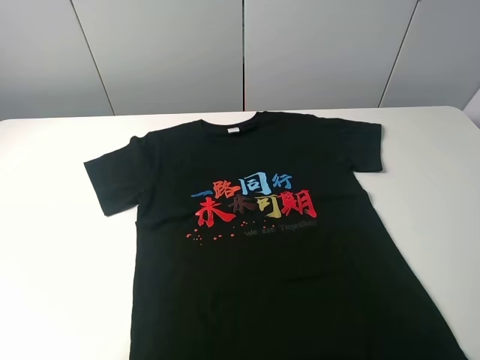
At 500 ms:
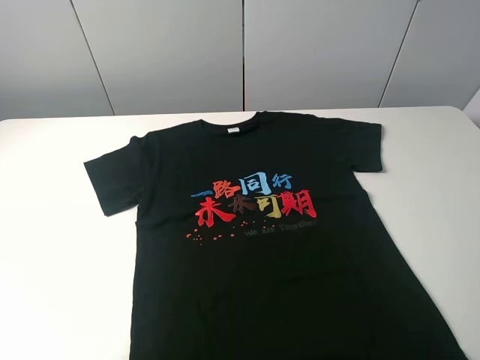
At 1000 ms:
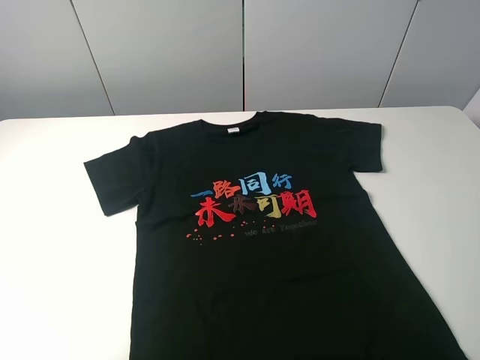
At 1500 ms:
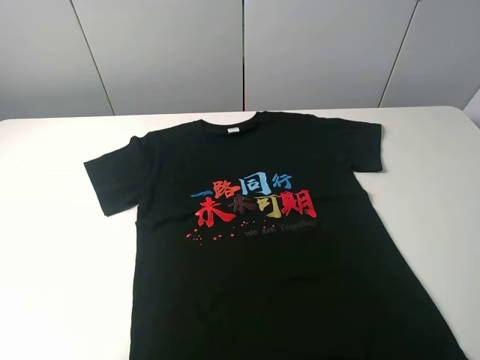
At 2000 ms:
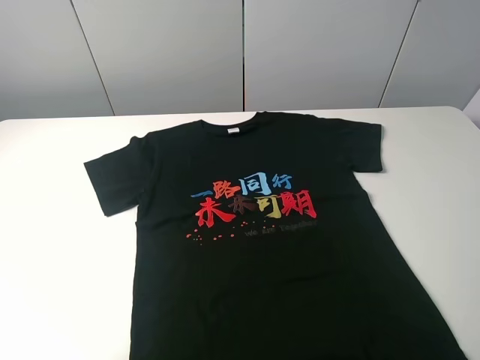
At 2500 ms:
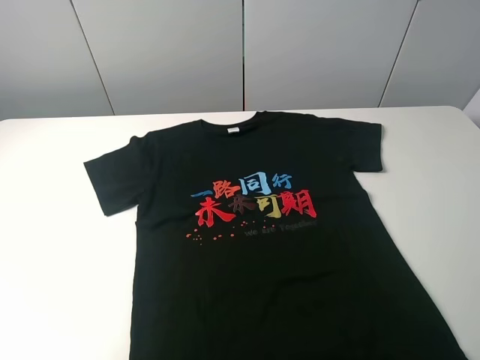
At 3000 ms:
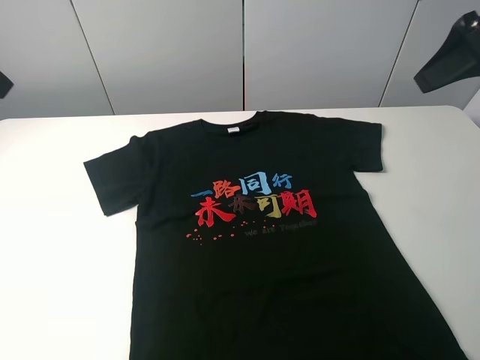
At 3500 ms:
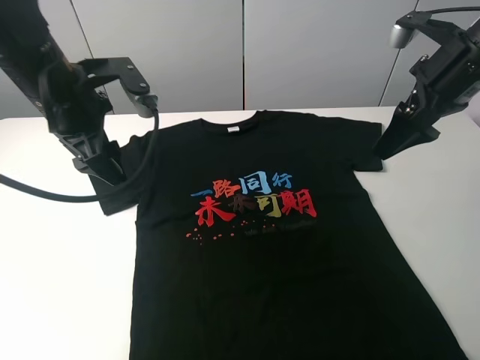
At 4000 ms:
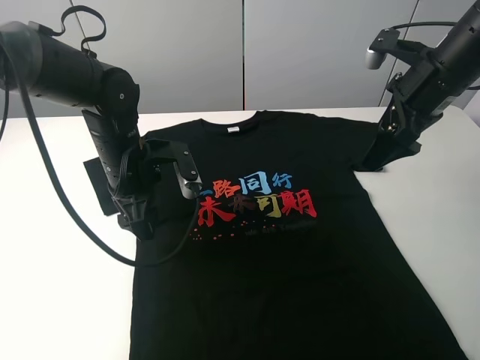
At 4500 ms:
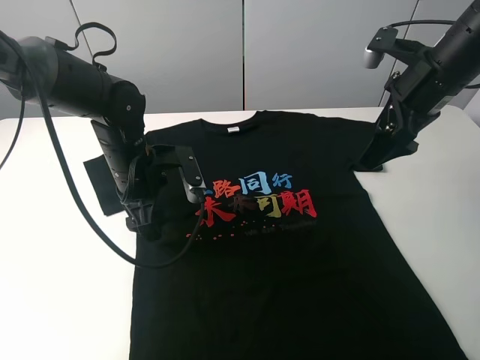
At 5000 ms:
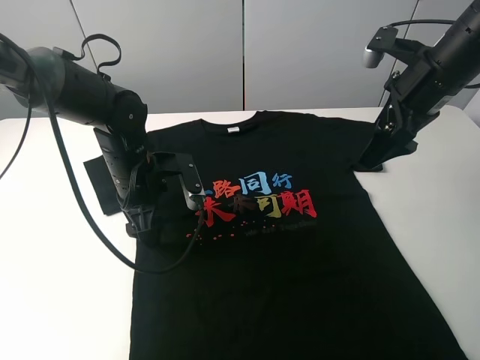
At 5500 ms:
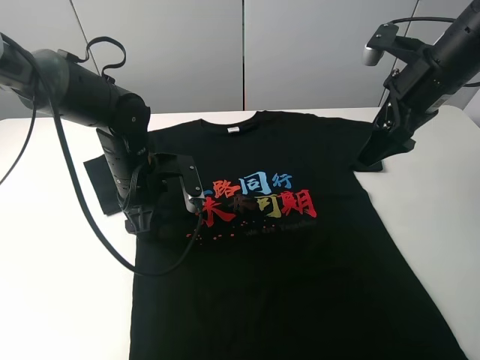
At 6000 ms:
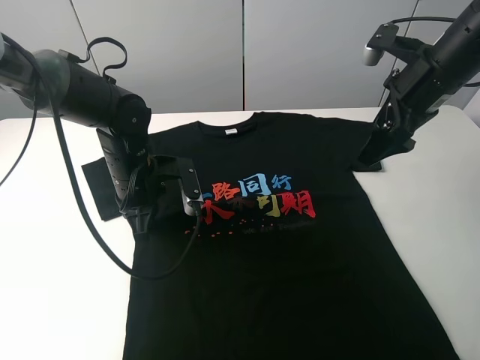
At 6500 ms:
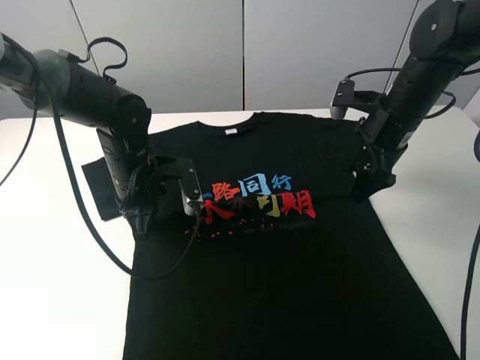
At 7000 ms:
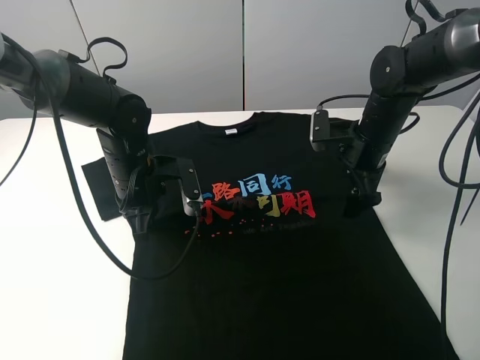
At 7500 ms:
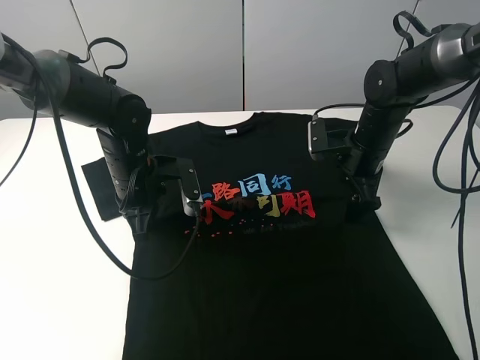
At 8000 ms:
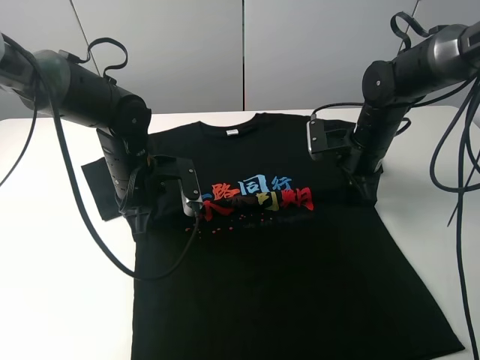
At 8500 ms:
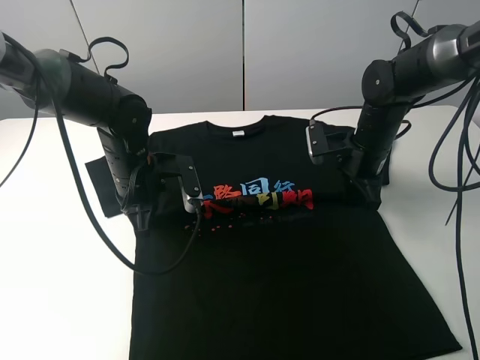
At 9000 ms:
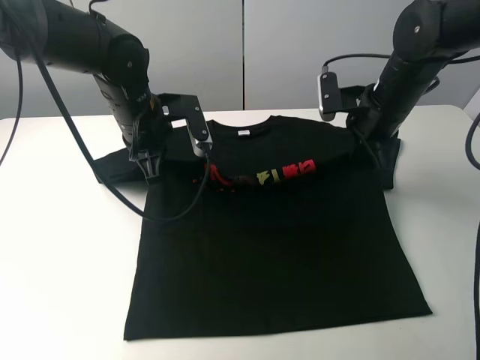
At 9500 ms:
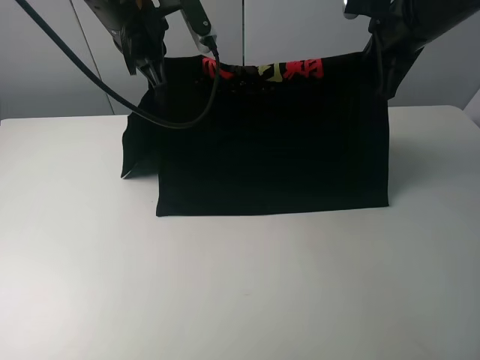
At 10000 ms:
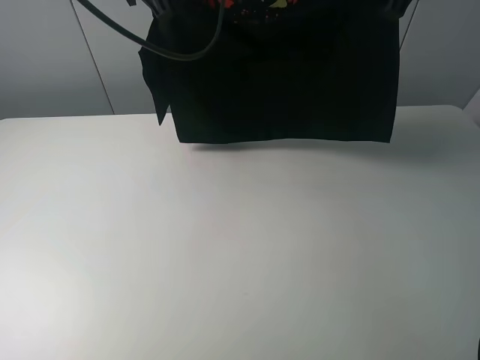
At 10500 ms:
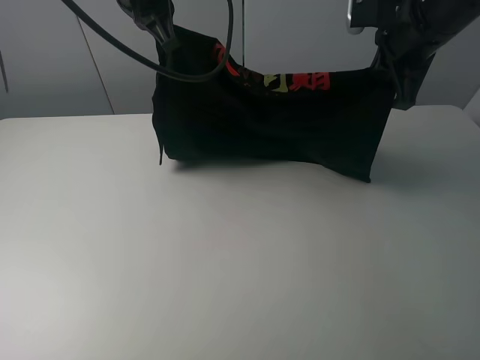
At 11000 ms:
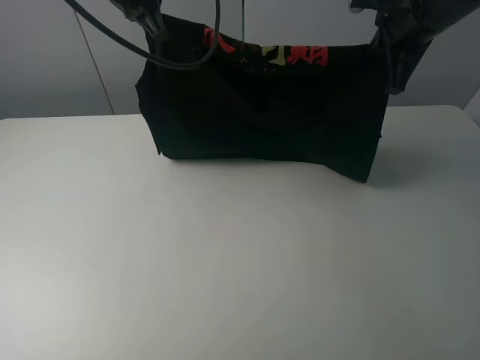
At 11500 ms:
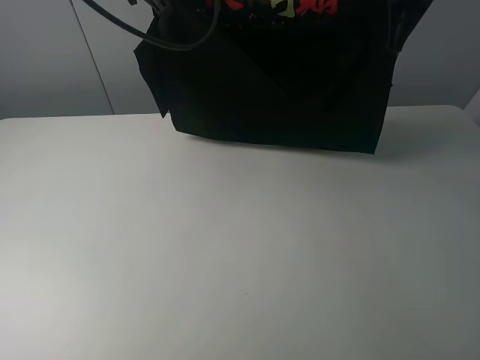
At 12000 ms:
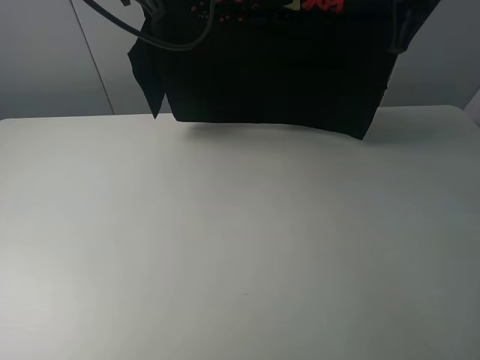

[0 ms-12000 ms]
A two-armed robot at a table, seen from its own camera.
Task of the whole recording: fold the clothes on the table.
Step, 0 ms to 8000 ms: Lift the black T-shirt with the left gripper.
2000 ms to 4000 ms: The left gripper goes about 40 cm forward, downward and to the right. Meanwhile the right gripper goes about 35 cm forward.
4000 ms to 6000 ms: The left gripper closes its fingers.
6000 ms to 8000 ms: The right gripper is displaced downward by about 15 cm, and closes.
8000 ms to 10000 ms: The two grippers go roughly 25 cm upward.
10000 ms to 12000 ms: The right gripper goes some 5 cm downward.

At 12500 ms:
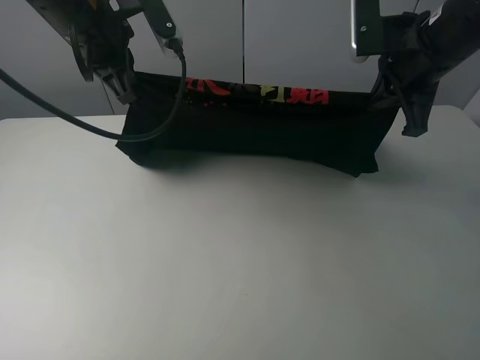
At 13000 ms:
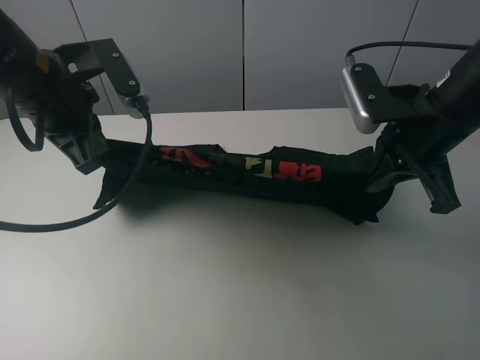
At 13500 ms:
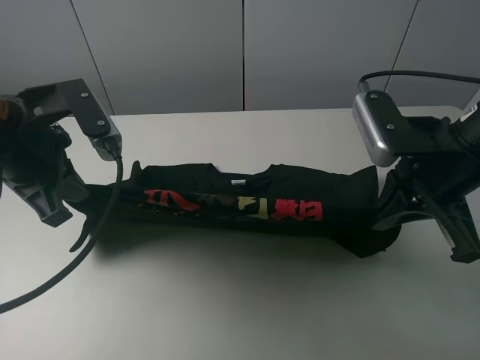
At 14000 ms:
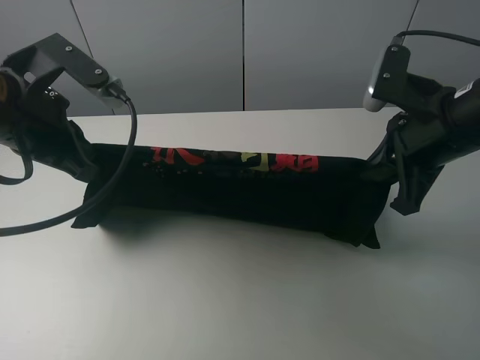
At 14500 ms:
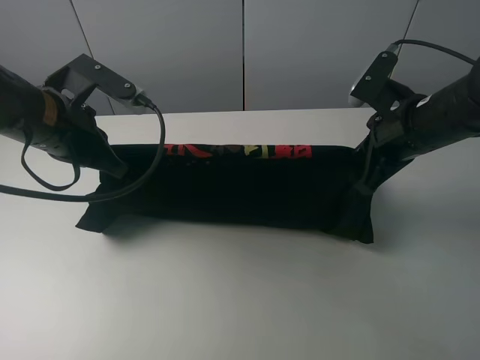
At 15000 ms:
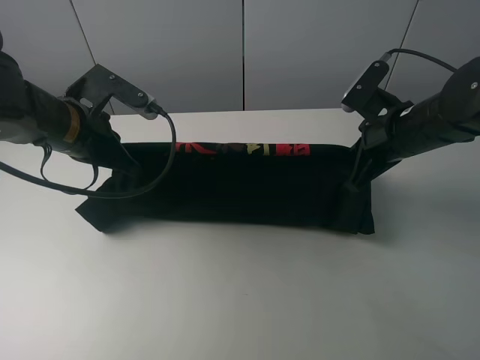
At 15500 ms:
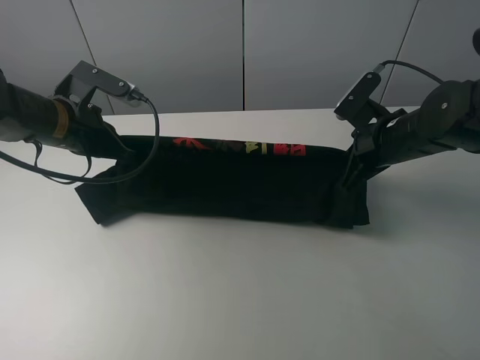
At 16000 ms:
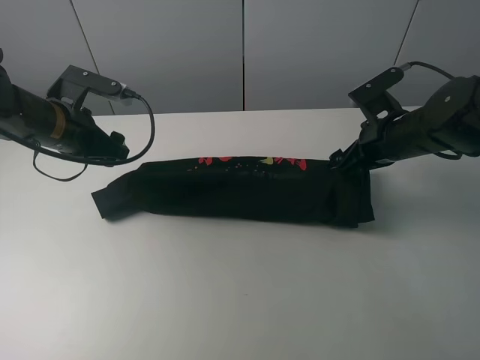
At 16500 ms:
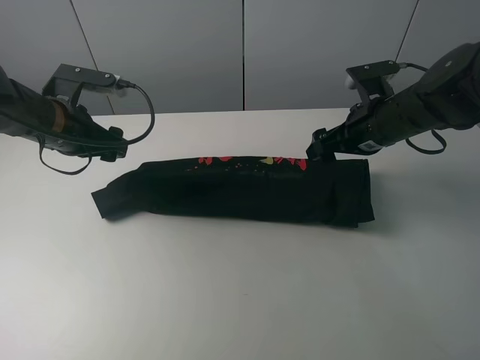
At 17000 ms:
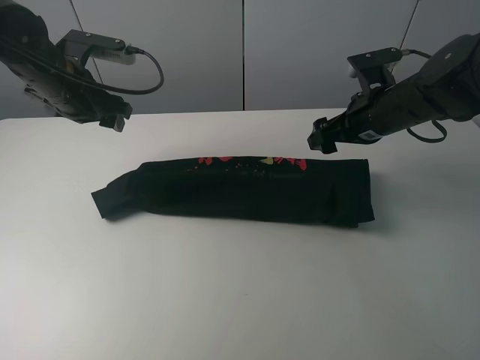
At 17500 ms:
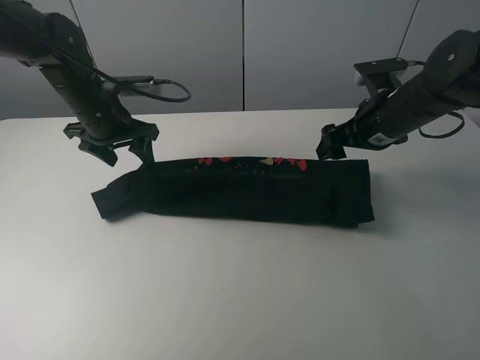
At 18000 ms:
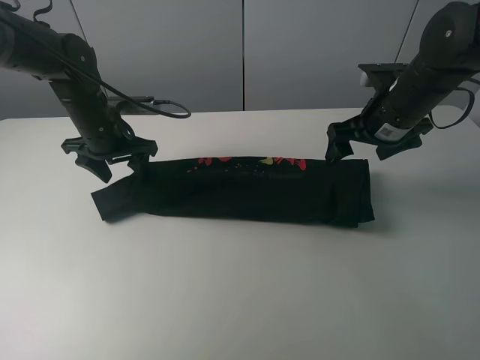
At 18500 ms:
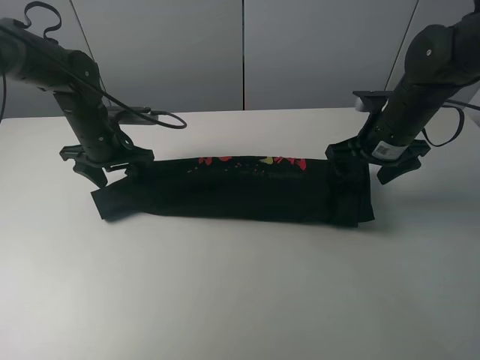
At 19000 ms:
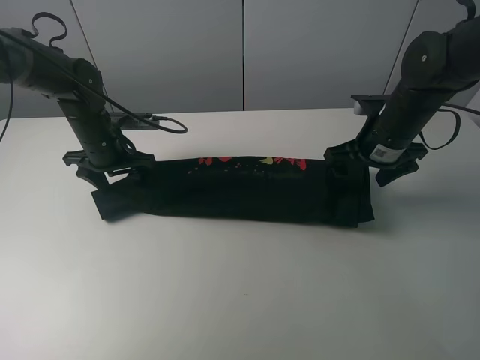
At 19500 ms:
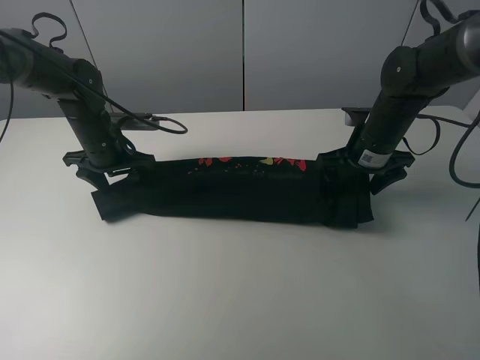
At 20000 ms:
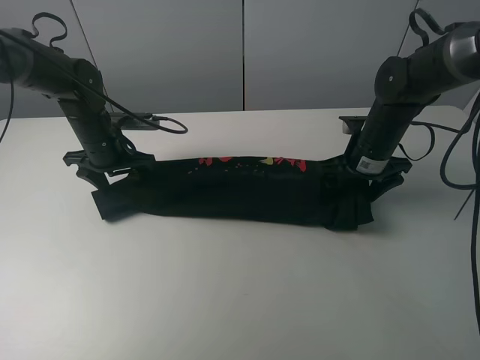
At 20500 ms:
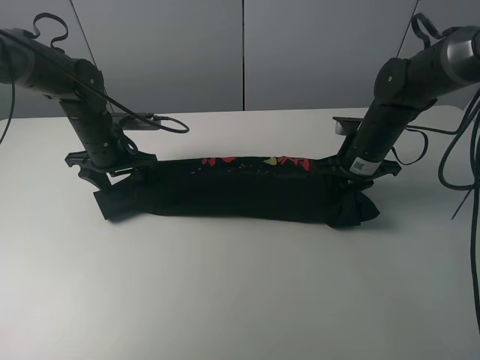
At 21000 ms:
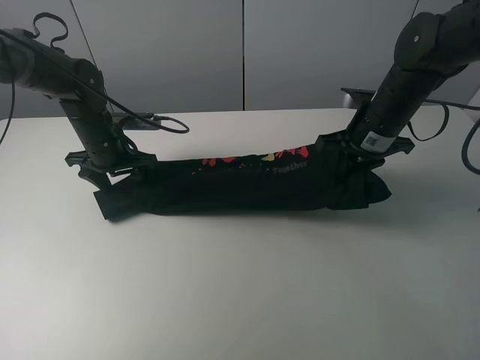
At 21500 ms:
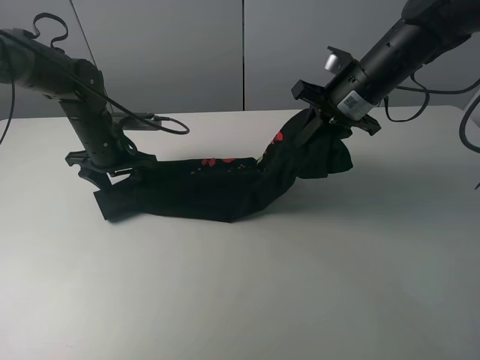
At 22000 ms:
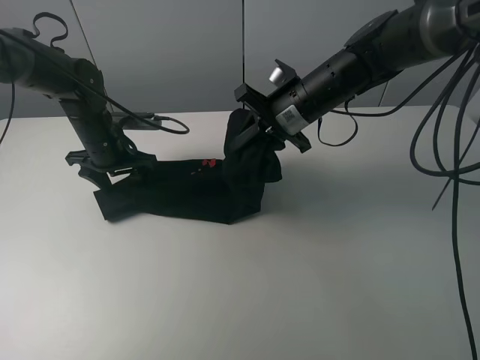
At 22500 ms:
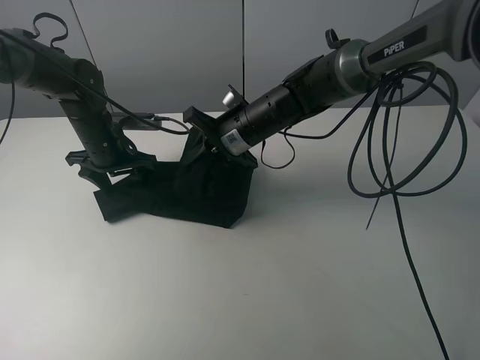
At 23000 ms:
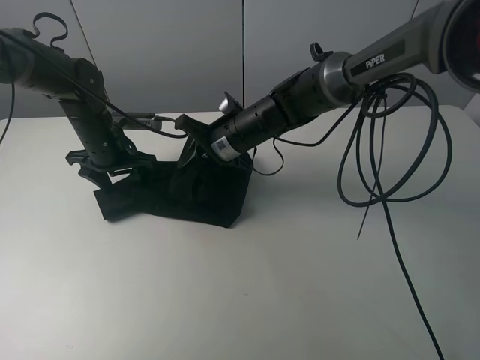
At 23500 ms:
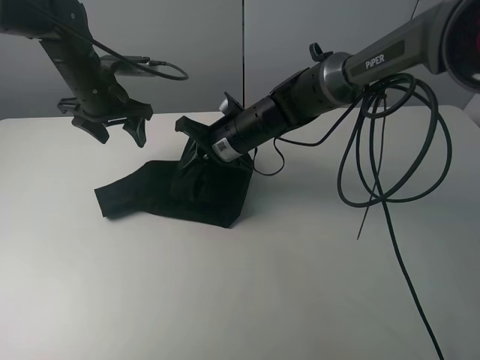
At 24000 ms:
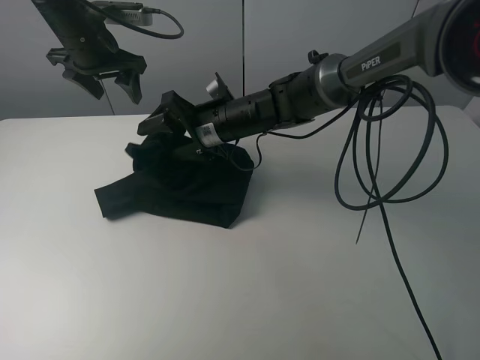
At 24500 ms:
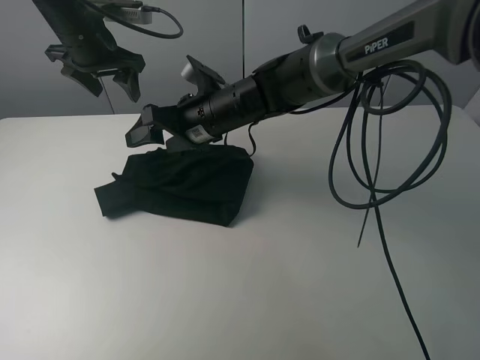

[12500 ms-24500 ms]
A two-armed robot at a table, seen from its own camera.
Task of the whole recording: fold the clothes on the table.
Step, 12500 ms to 16000 ms: Fold the black T-shirt downward with the right gripper.
Step, 16500 ms to 20000 ms: Grasp the black T-shirt with the right gripper.
Step, 20500 ms to 24000 ms: Fold the black T-shirt from right to left with right gripper.
12500 ms to 14500 ms: The left gripper moves backward and downward, about 10 cm; the right gripper goes roughly 10 cm downward.
14500 ms to 16500 ms: The two grippers go about 5 cm forward. The left gripper opens, while the right gripper opens its fingers.
16500 ms to 18500 ms: The left gripper goes about 10 cm forward and downward.
18500 ms to 20500 ms: The right gripper goes roughly 5 cm downward, and closes up.
20500 ms to 22500 ms: The right gripper goes about 20 cm to the left.
22500 ms to 24500 ms: The right gripper moves approximately 5 cm, and opens. The left gripper moves upward, some 15 cm.

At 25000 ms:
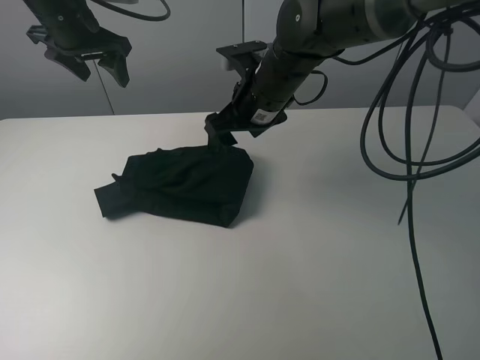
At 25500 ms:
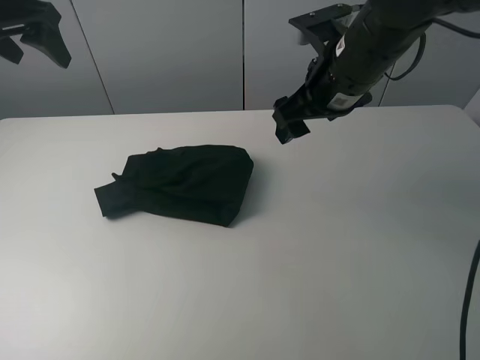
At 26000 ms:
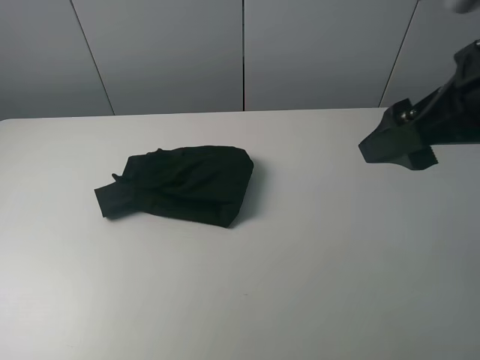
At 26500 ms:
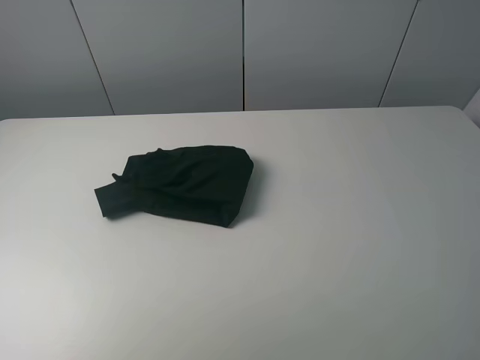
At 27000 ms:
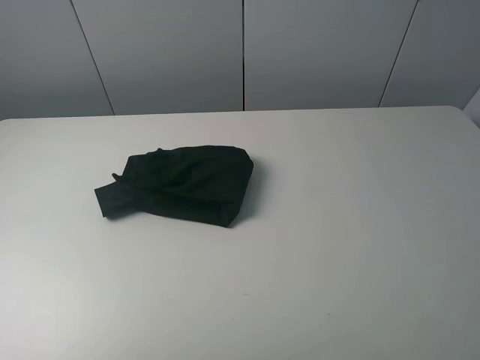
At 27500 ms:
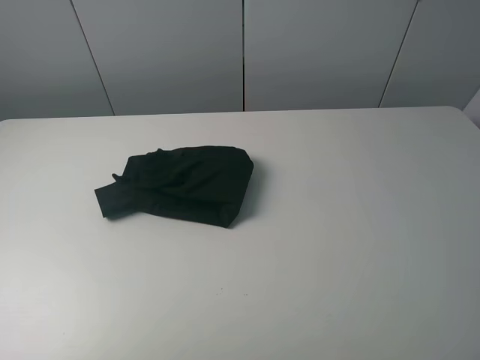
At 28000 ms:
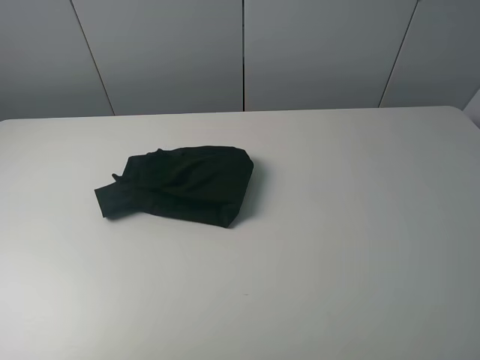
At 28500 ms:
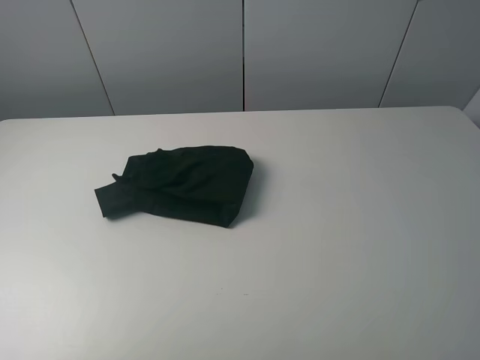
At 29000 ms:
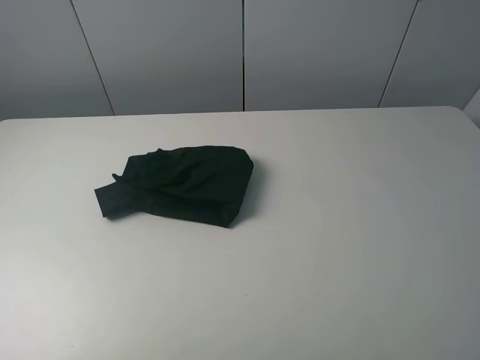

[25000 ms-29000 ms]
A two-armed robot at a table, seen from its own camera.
Task of the whole recording: fold the clothes on the table.
25000 ms to 27000 ms: The right gripper shifts some 40 cm backward and to the right; the left gripper moves backward, approximately 40 cm.
